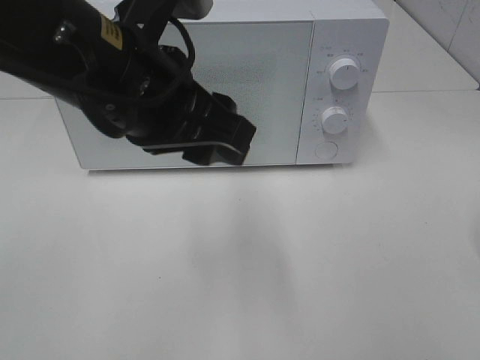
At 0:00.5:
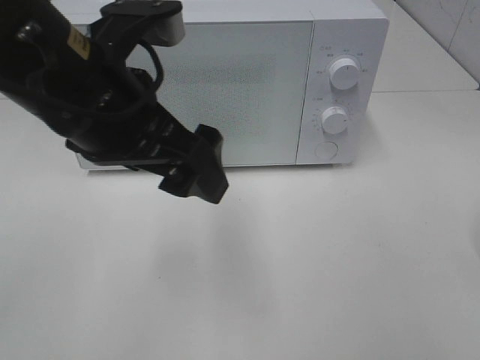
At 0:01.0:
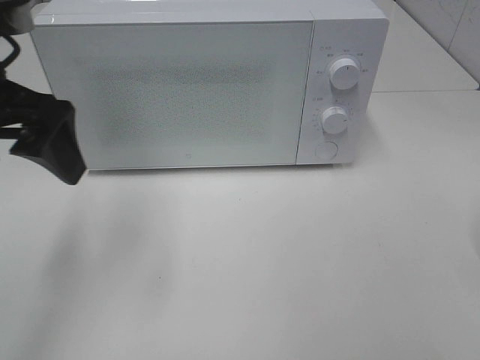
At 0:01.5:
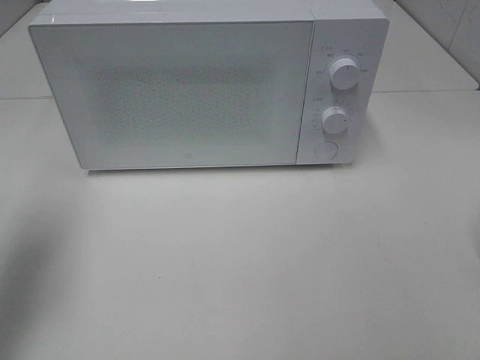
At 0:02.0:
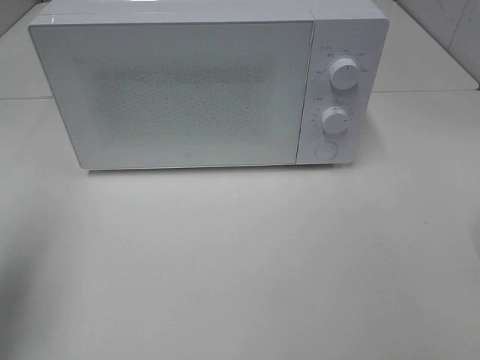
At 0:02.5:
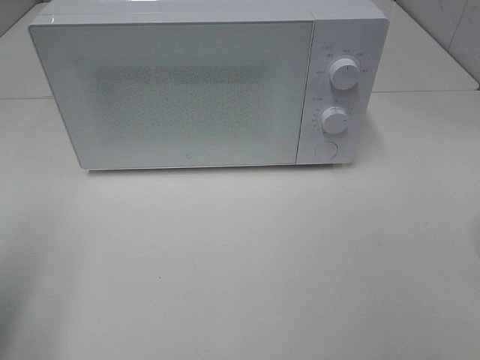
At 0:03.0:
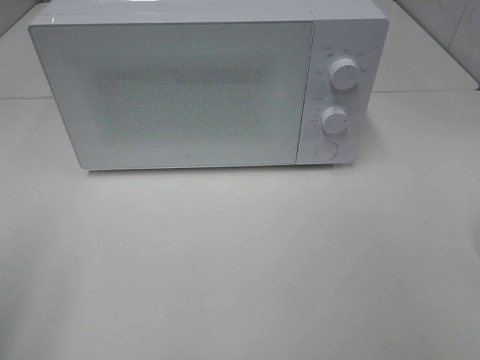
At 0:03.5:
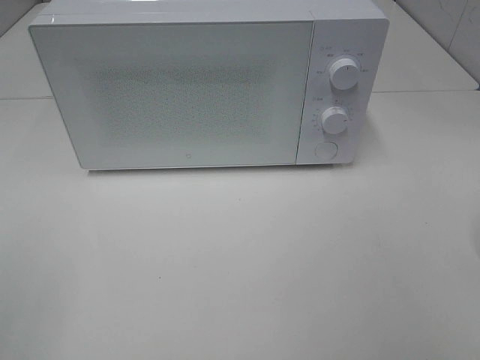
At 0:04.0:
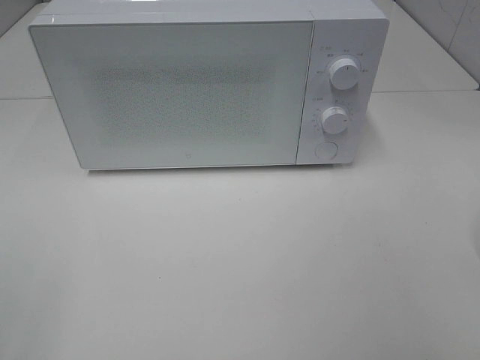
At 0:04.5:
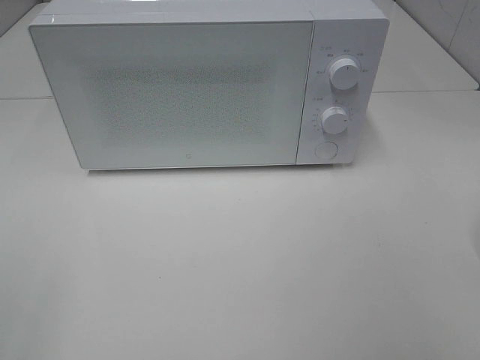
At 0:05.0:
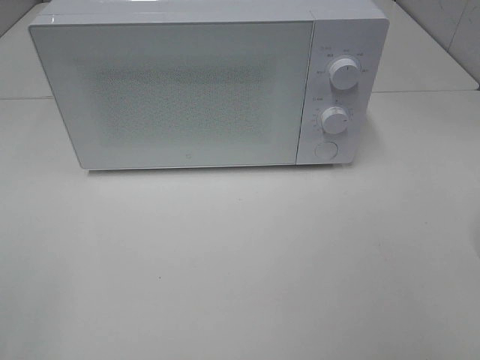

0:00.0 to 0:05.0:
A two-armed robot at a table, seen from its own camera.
Task of the whole recording: Heat the burger.
0:00.0 to 0:02.5: The left gripper moves to the left and backward, approximately 25 cm, and opens up.
0:02.5 to 0:05.0: The left gripper moves backward, approximately 15 cm.
